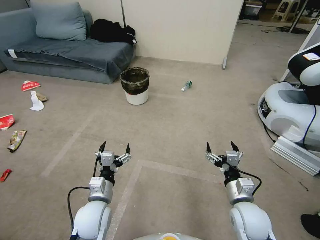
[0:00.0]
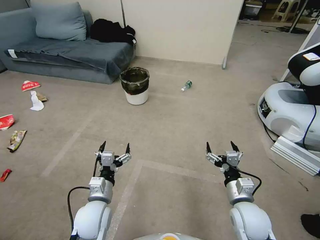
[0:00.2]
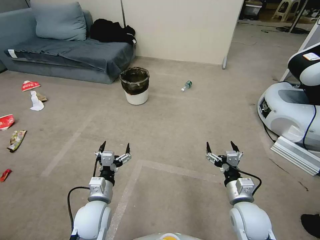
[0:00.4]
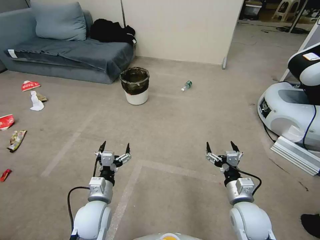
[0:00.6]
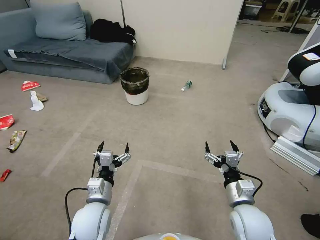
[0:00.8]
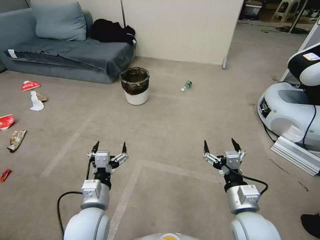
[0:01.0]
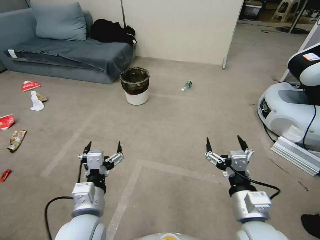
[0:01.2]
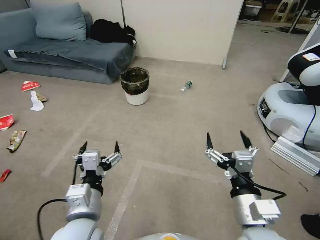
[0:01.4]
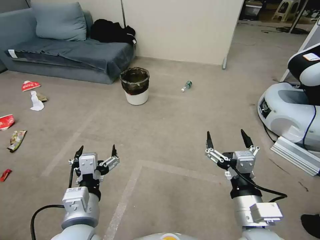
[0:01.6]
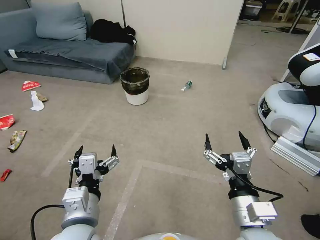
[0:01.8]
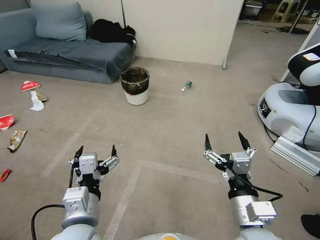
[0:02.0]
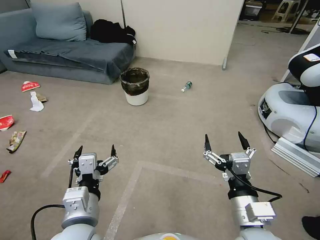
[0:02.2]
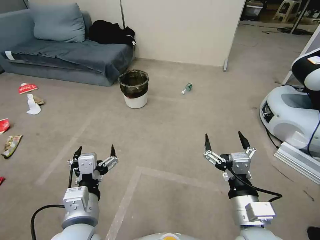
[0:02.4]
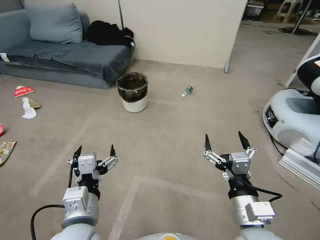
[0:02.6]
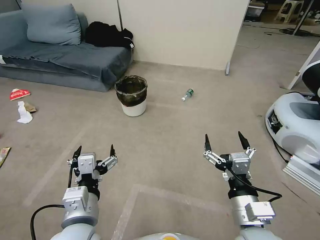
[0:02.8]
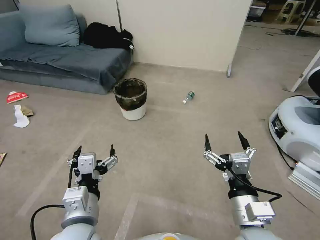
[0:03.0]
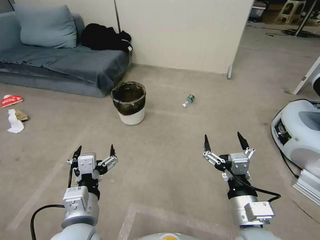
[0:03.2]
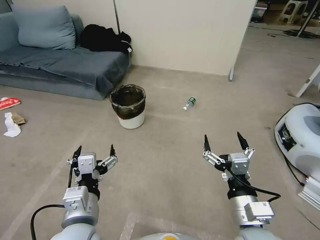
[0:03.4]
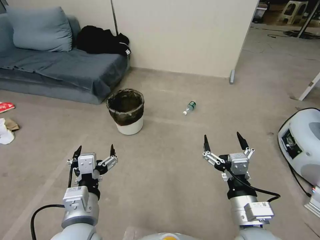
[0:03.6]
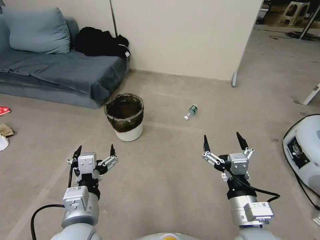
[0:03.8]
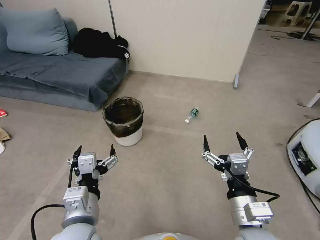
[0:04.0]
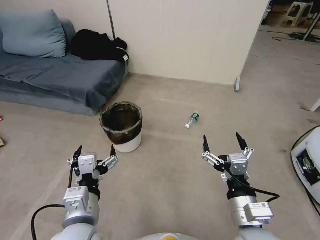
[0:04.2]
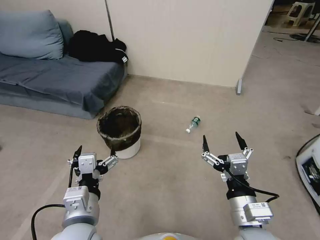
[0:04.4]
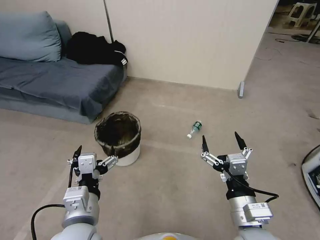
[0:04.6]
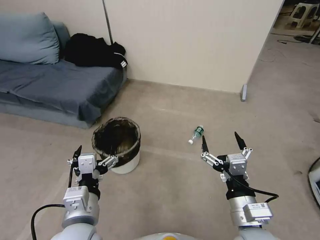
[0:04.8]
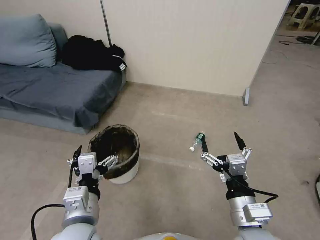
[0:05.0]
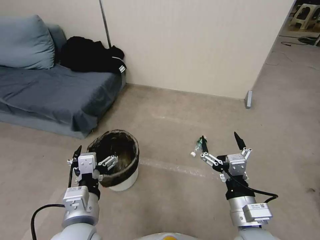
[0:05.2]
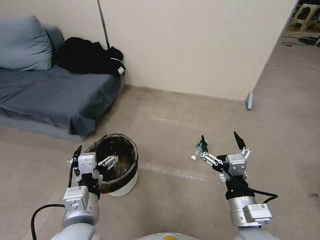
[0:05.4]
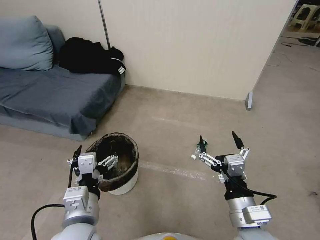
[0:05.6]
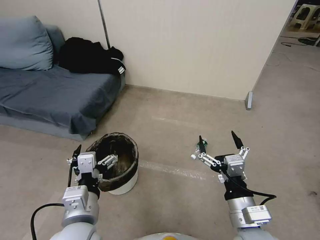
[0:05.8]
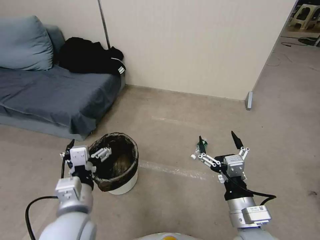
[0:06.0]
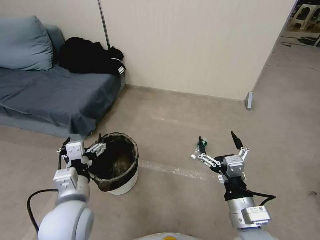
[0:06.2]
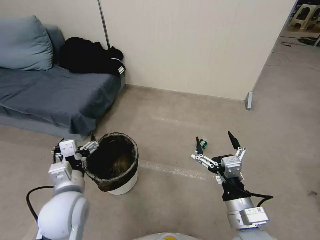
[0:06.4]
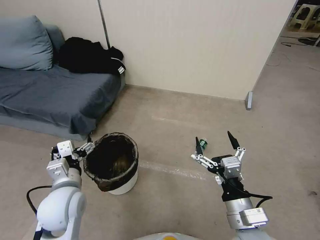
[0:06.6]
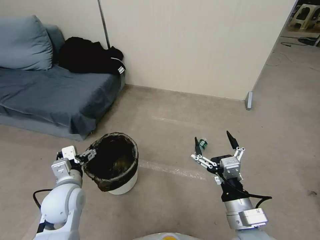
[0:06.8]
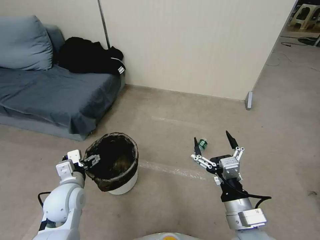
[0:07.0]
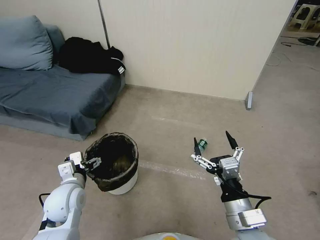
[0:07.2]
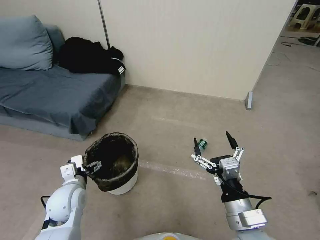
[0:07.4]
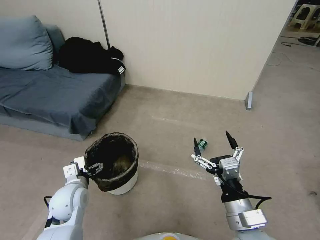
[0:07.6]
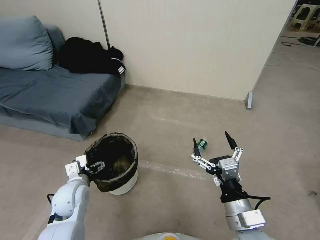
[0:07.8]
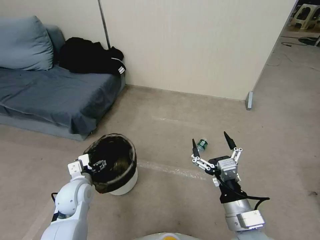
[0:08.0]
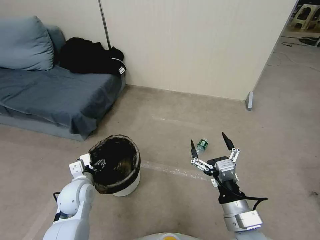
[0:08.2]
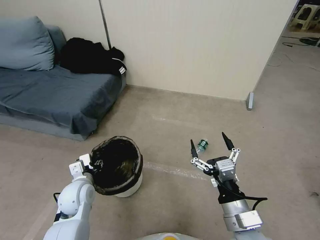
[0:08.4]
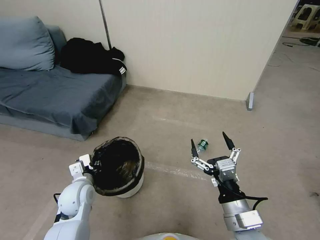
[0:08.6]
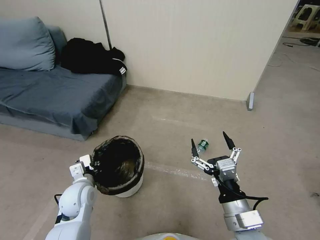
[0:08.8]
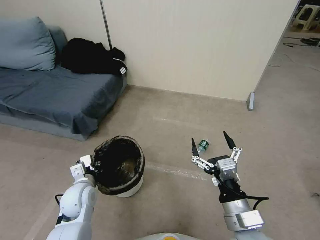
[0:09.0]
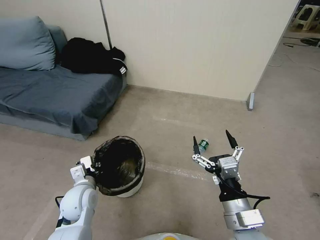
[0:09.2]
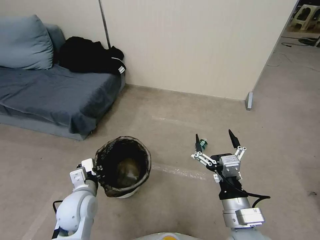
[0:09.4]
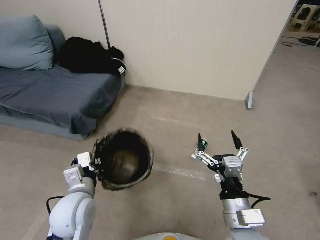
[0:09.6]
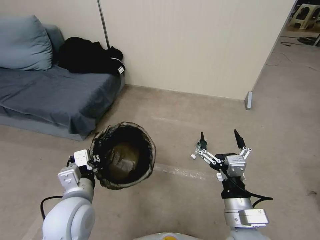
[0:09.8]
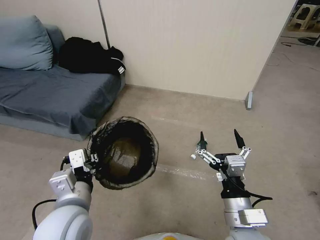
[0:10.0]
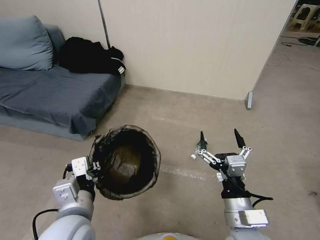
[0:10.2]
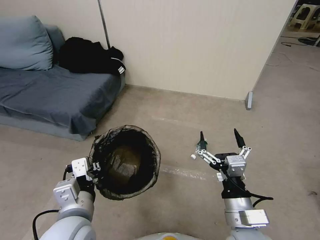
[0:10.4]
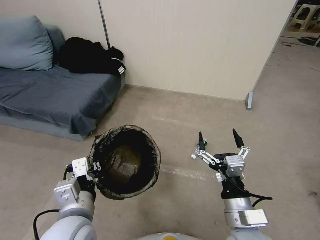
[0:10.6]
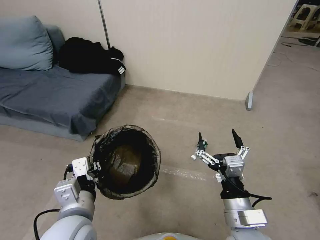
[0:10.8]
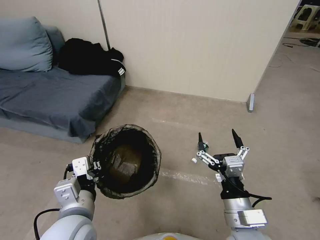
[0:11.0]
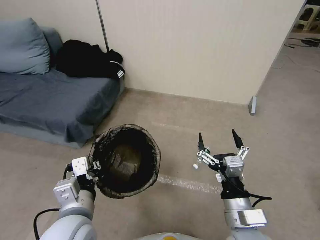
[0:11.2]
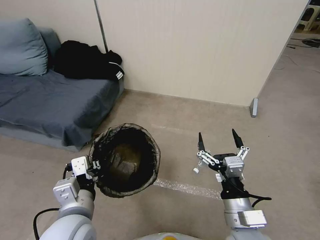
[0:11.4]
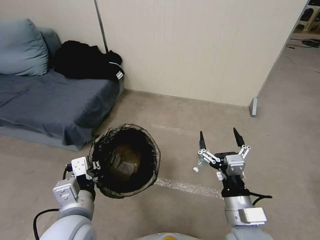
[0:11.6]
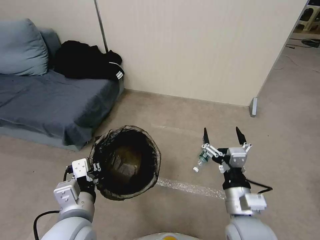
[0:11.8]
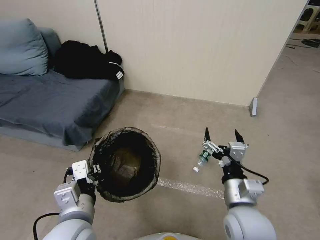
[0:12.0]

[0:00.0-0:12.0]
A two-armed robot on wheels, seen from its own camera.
Task of the whole recording: Pick up the trash bin, then pick up the garbage from the floor and place it into the trash bin.
0:06.0 to 0:07.6: The left gripper is displaced downward, forward and to the left by some 20 cm.
0:07.6 to 0:09.0: The left gripper closes up.
0:09.0 to 0:10.4: The left gripper heads upward, backward and to the right, covering roughly 20 cm.
0:10.4 to 0:12.0: There are only small adjustments of the grippers.

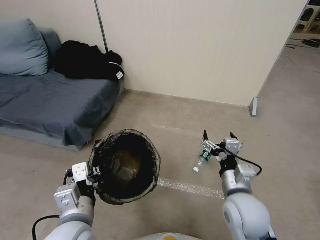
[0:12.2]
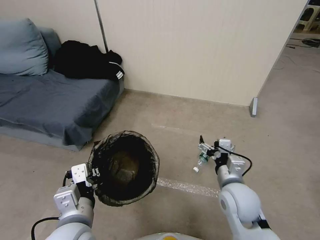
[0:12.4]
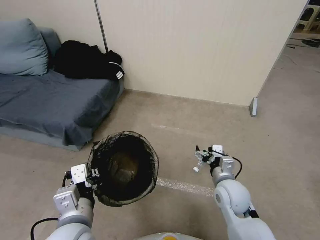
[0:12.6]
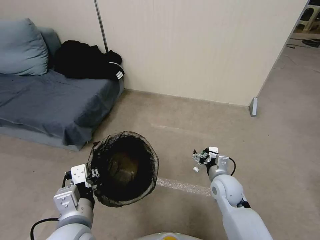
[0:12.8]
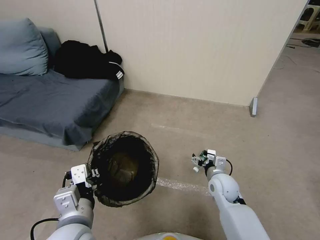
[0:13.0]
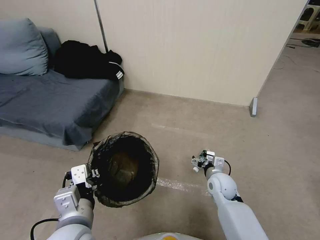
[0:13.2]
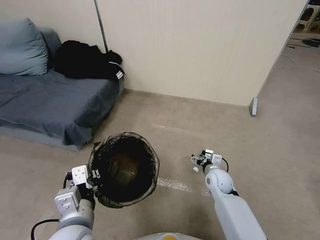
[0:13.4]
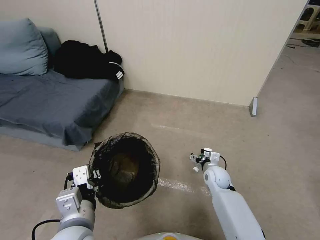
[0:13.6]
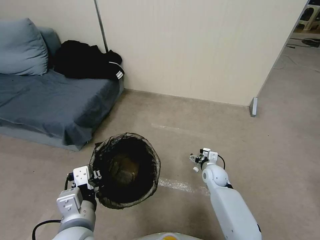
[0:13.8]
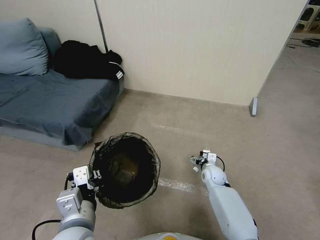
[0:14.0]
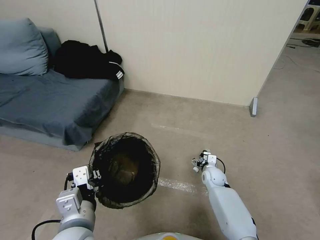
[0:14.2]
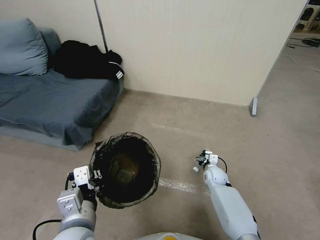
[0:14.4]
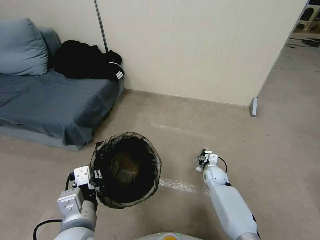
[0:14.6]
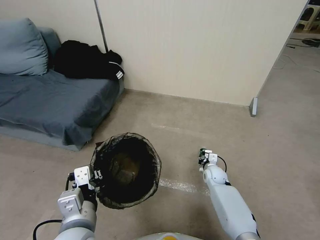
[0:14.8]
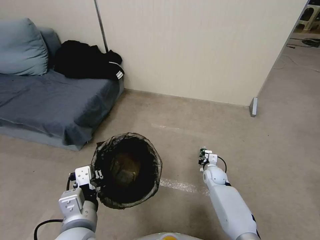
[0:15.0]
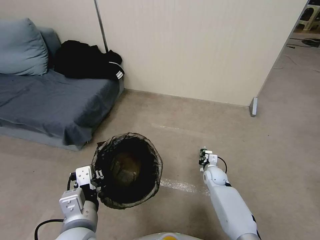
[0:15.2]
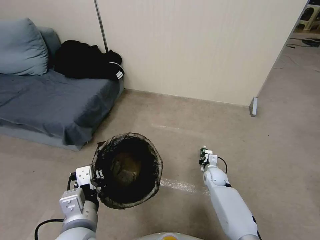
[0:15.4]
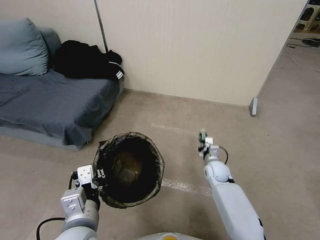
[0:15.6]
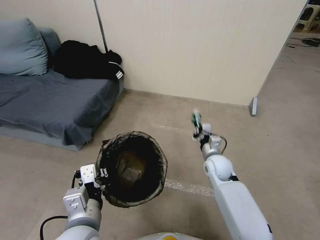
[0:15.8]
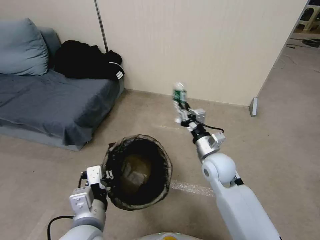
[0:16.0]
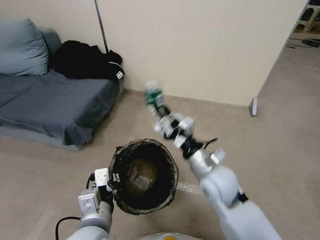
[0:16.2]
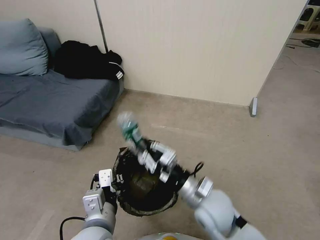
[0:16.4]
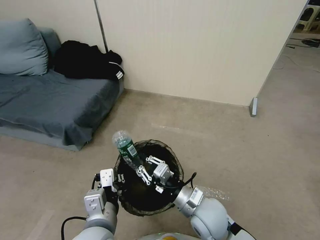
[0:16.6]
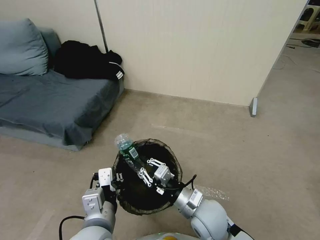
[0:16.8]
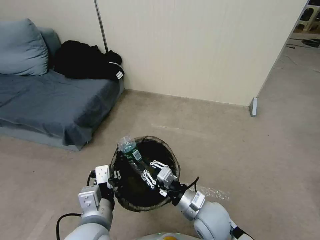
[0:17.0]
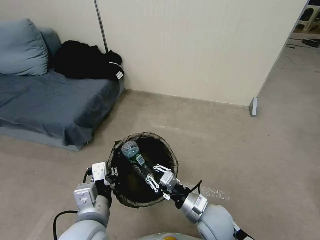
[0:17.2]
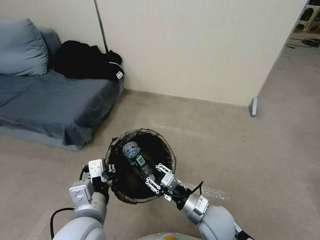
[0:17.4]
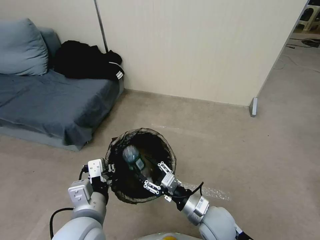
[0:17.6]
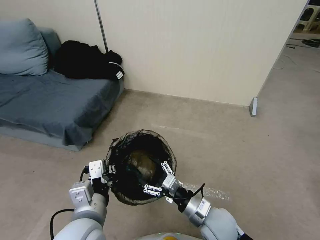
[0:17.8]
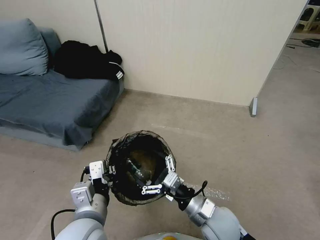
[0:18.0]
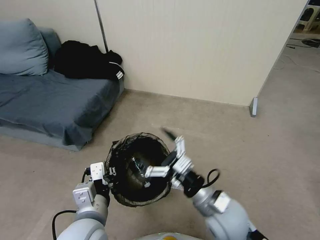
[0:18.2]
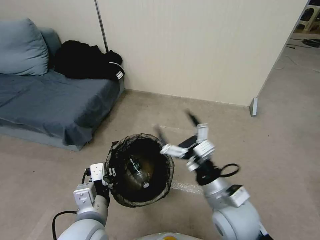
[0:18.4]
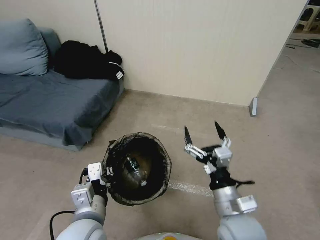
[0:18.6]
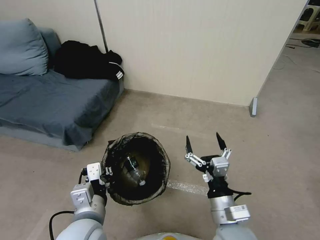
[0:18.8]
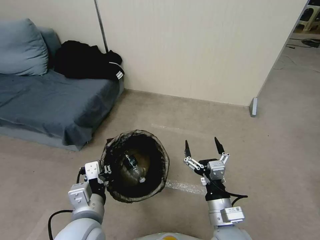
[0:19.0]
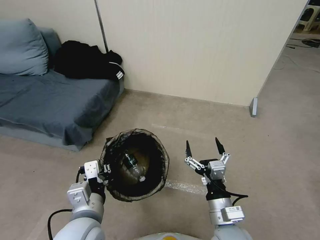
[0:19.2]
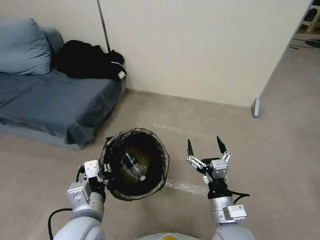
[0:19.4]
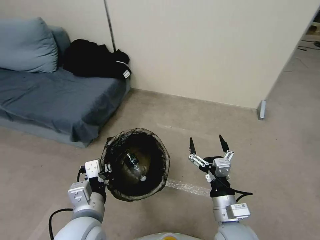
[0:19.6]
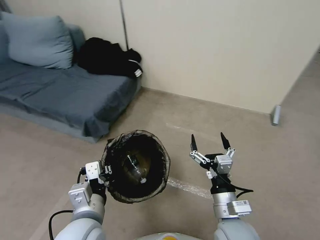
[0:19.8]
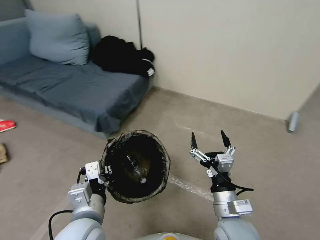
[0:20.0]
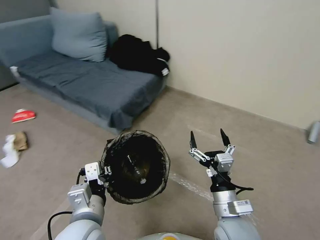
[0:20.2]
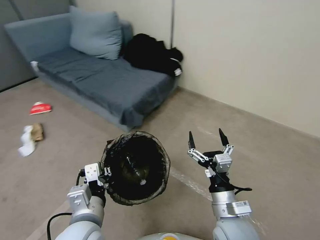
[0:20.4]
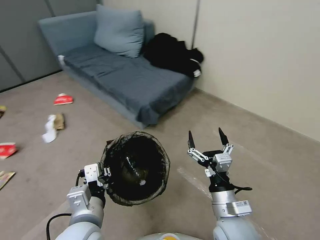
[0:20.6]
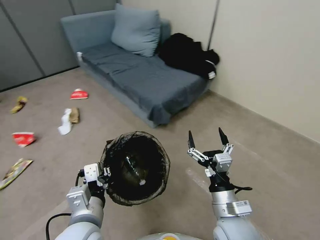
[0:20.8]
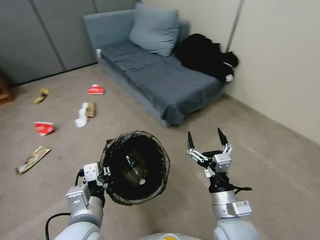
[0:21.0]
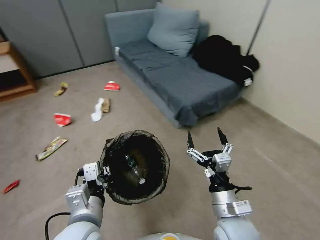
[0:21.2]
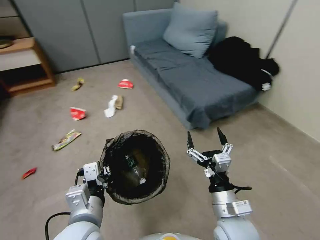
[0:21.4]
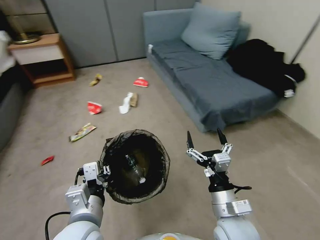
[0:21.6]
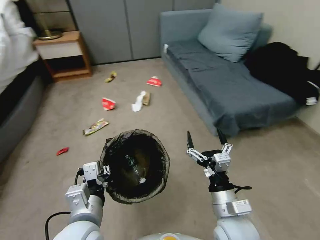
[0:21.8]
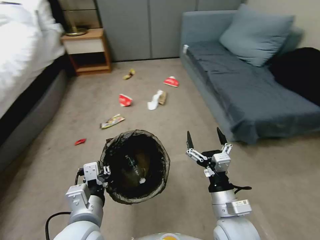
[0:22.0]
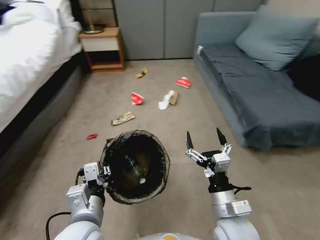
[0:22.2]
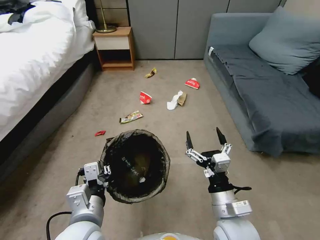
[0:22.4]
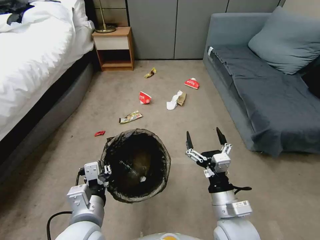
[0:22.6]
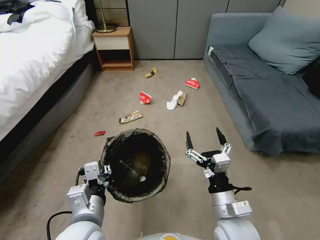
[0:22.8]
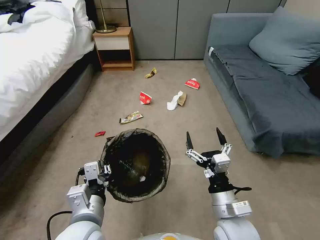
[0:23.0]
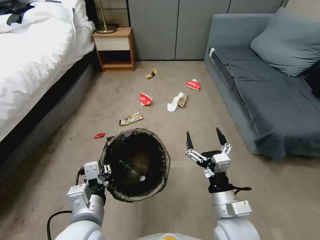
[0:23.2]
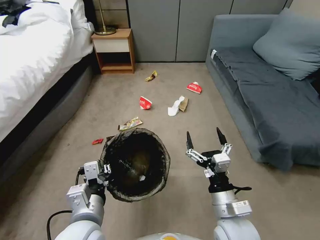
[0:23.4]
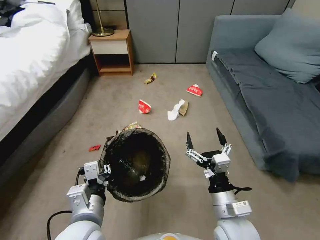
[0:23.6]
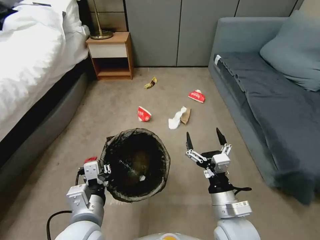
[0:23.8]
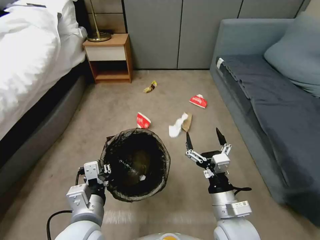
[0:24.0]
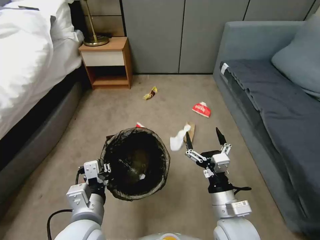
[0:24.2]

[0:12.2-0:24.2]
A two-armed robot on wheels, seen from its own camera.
Task of the whole recording: Pick up the trash bin, then pick up the garbage from the floor and place it into the trash bin.
0:12.2 to 0:13.8: The right gripper is displaced downward and forward by approximately 25 cm.
0:13.8 to 0:15.2: The right gripper ends up roughly 5 cm from where it was, and closes its fingers.
0:15.2 to 0:16.6: The right gripper heads upward, backward and to the left, covering roughly 30 cm.
0:16.6 to 0:18.2: The right gripper shifts by roughly 5 cm, and opens up.
